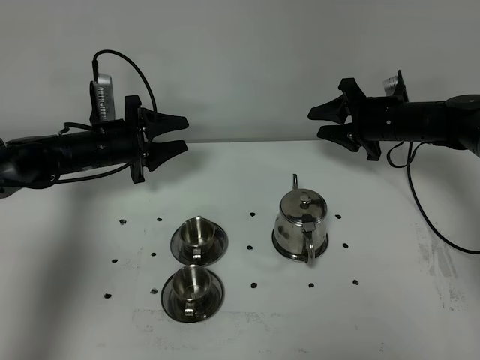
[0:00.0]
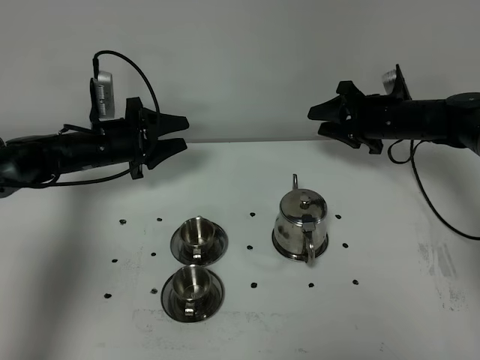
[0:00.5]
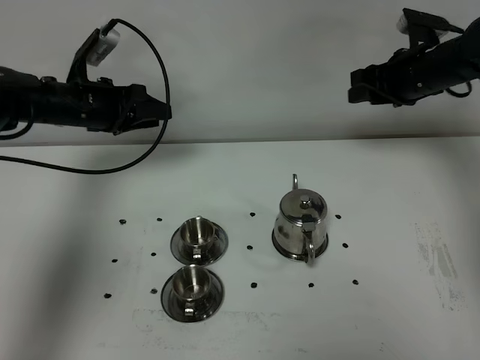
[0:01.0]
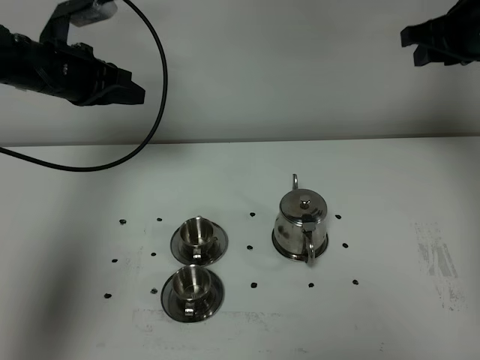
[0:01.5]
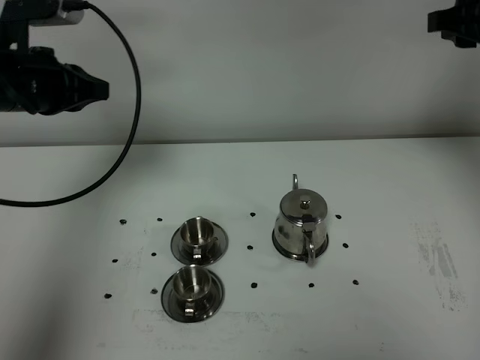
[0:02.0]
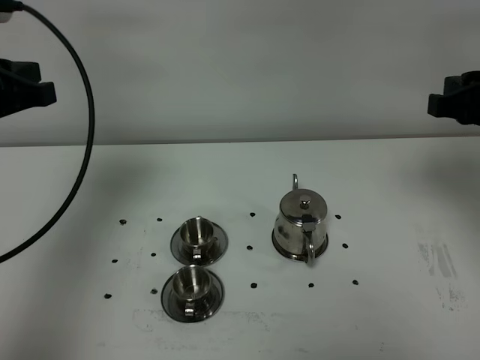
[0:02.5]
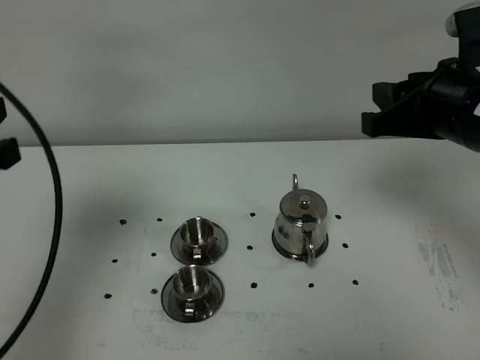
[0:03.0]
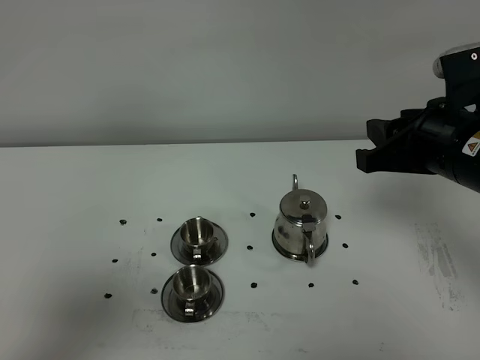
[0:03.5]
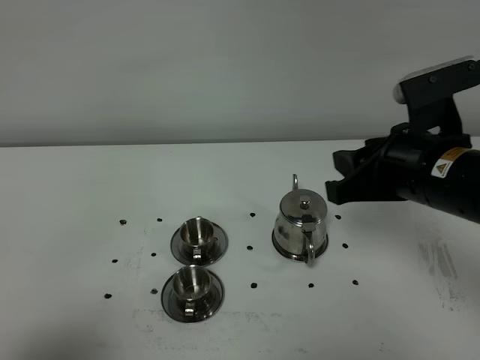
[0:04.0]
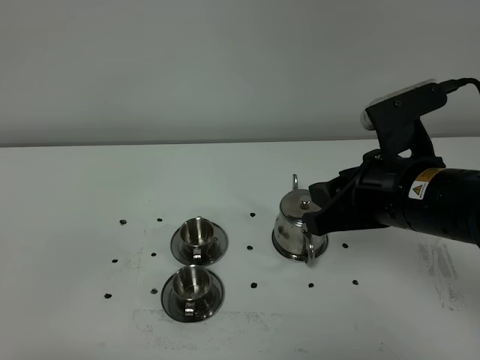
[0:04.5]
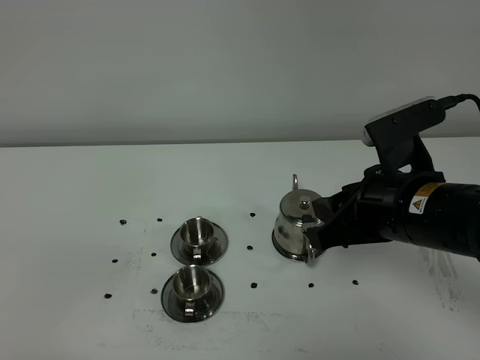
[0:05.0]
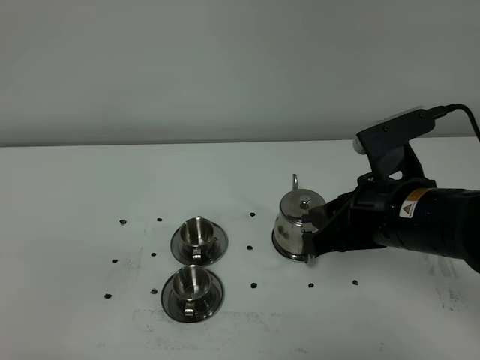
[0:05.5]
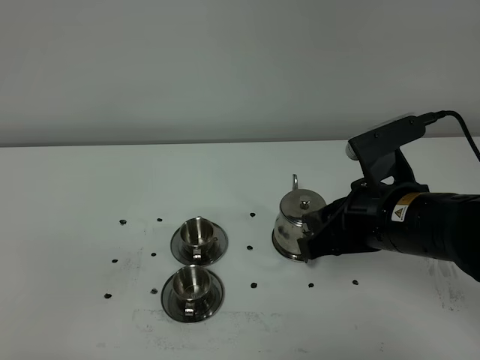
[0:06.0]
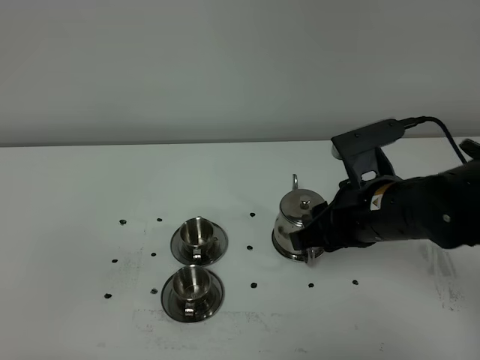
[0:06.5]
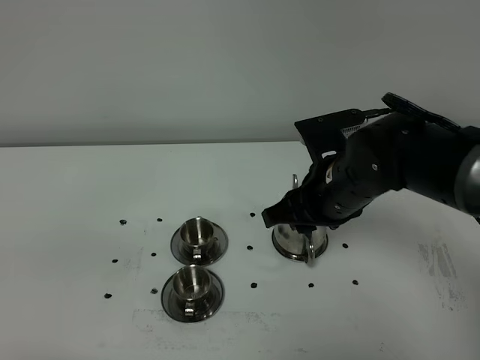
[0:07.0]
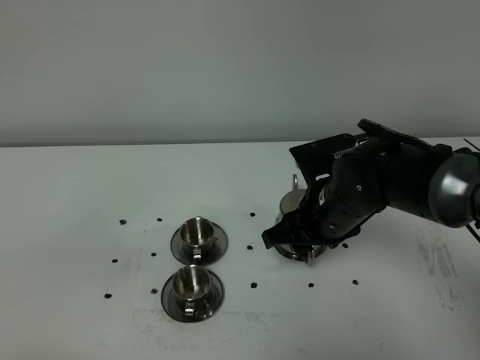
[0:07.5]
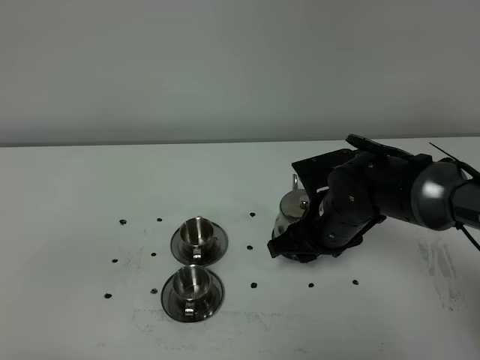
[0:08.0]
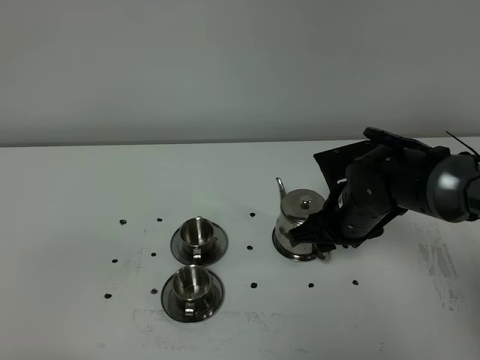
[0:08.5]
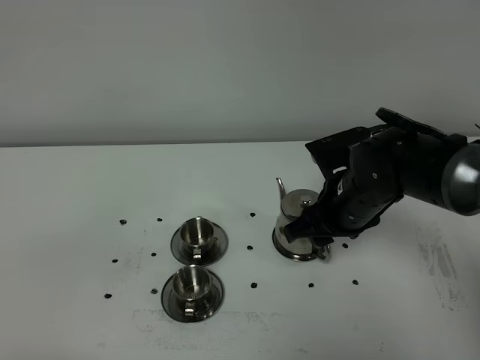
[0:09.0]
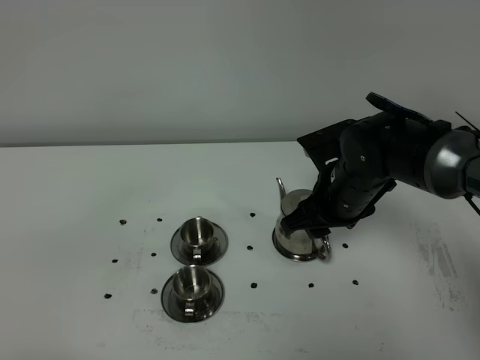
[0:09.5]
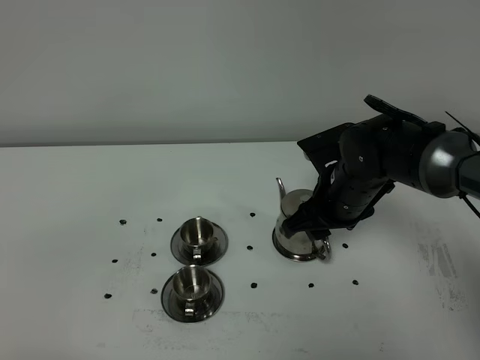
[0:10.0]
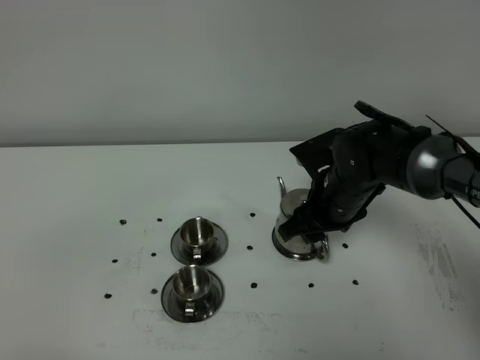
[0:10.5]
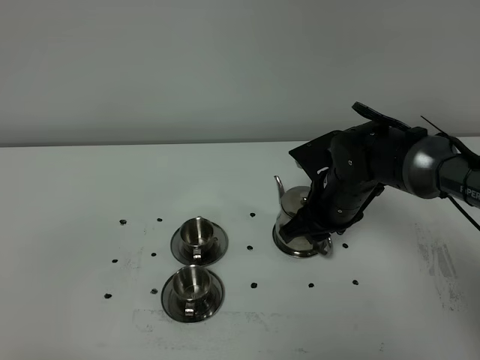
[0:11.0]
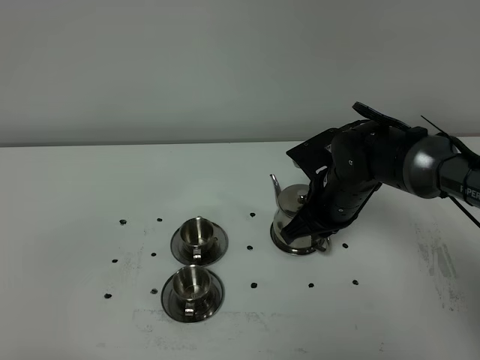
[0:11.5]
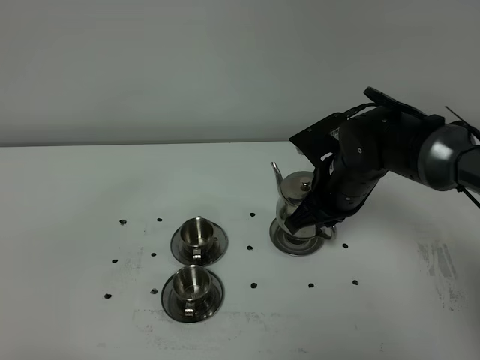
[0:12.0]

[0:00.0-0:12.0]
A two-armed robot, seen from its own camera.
Task of the whole recording: grasp the stainless steel teapot and pour the tea into the two stainless steel teacups one by one, put the stainless steel teapot back in its original place.
Step, 0:00.0 to 0:11.5: Pick up the teapot with the right gripper.
0:00.0 to 0:02.0: The grippers both shift upward and backward by some 25 cm. The left gripper closes up.
0:02.0 to 0:04.0: The right gripper moves backward, to the left and downward, roughly 20 cm. The left gripper moves backward, about 35 cm.
0:04.0 to 0:06.0: The left gripper heads backward, covering about 5 cm.
0:06.0 to 0:08.0: The right gripper shifts about 10 cm forward and downward.
0:08.0 to 0:10.0: The grippers stay close to where they were, moving slightly.
0:10.0 to 0:12.0: The right gripper closes.

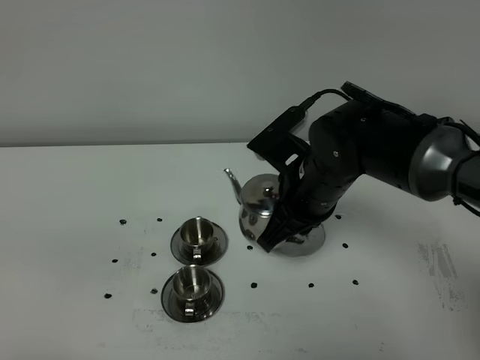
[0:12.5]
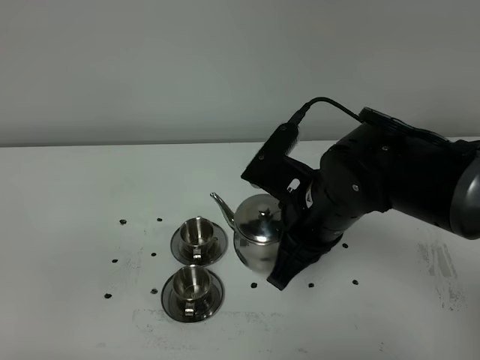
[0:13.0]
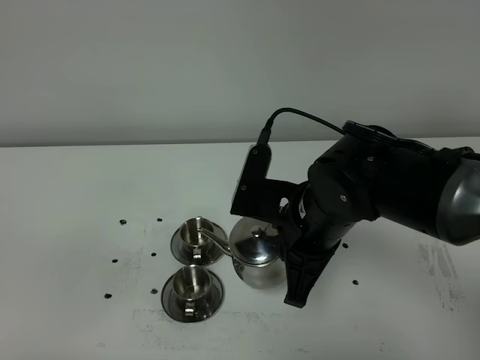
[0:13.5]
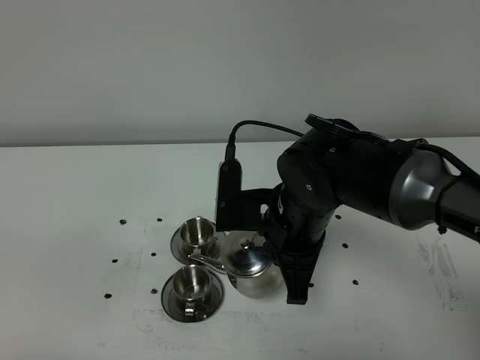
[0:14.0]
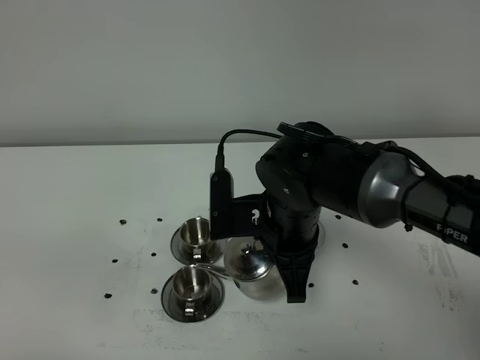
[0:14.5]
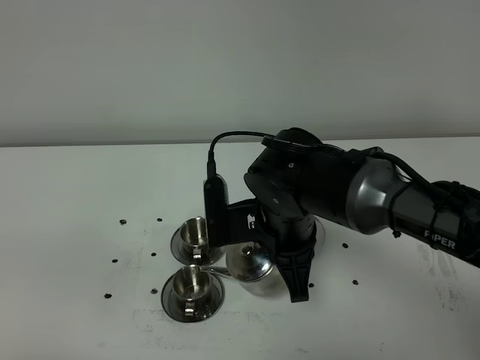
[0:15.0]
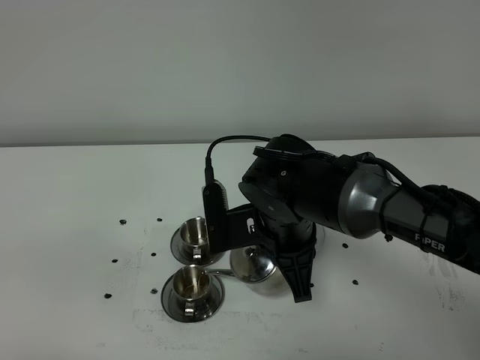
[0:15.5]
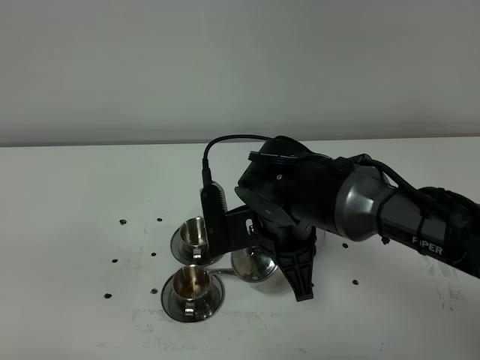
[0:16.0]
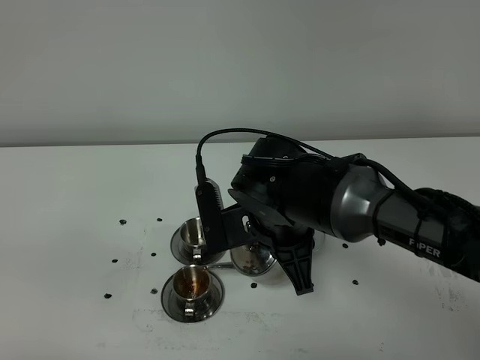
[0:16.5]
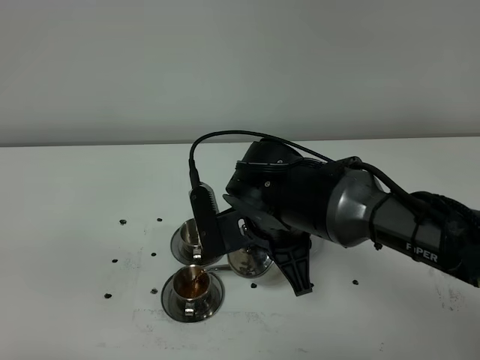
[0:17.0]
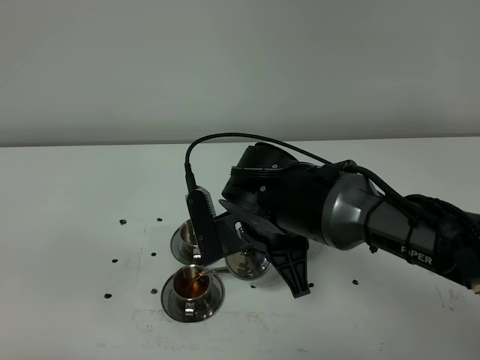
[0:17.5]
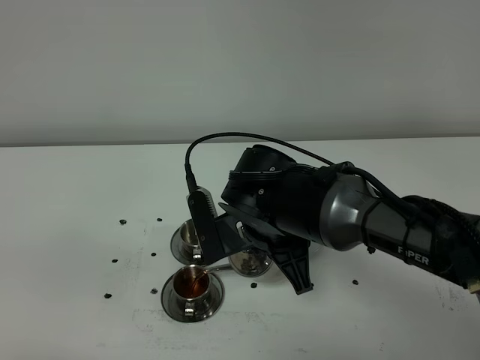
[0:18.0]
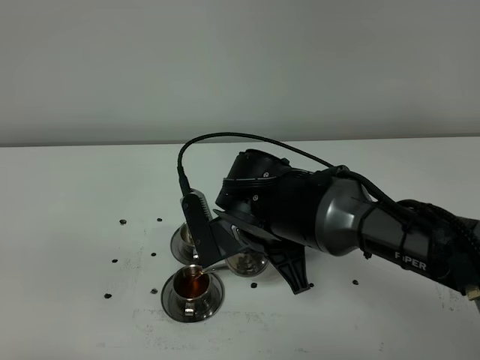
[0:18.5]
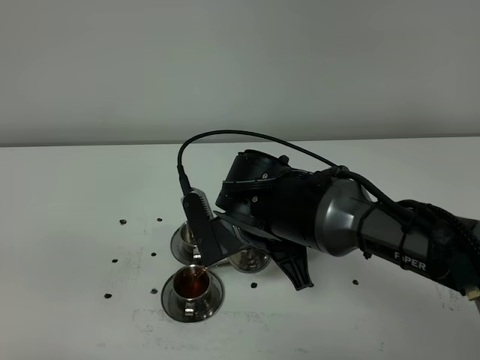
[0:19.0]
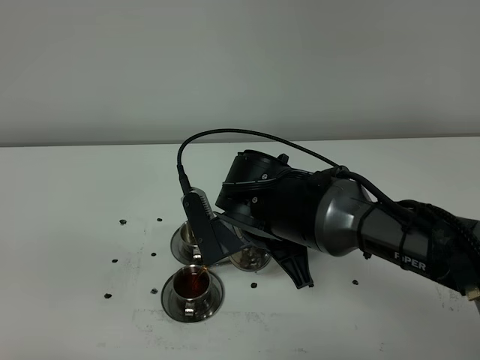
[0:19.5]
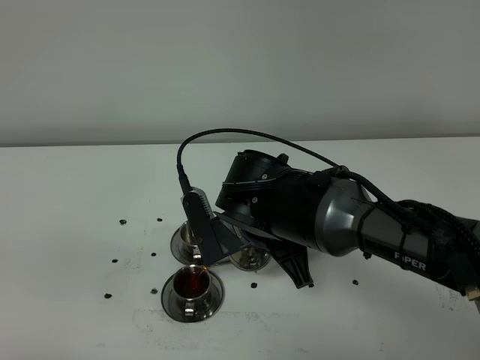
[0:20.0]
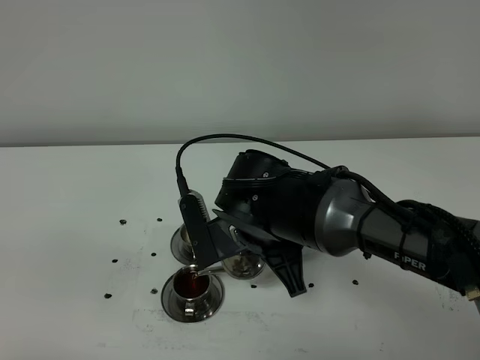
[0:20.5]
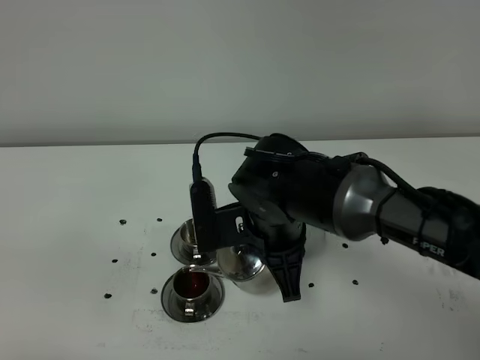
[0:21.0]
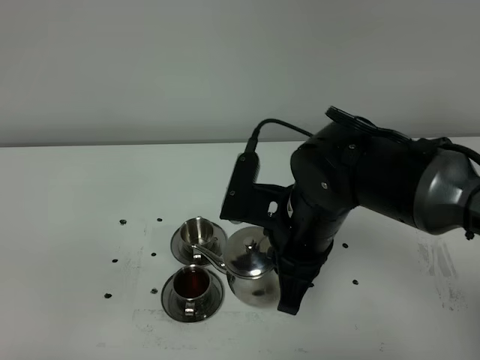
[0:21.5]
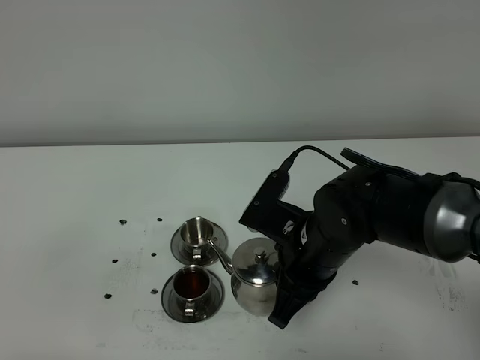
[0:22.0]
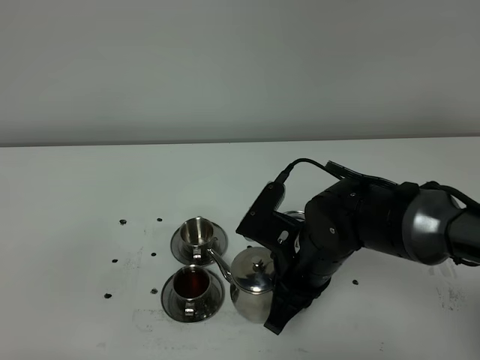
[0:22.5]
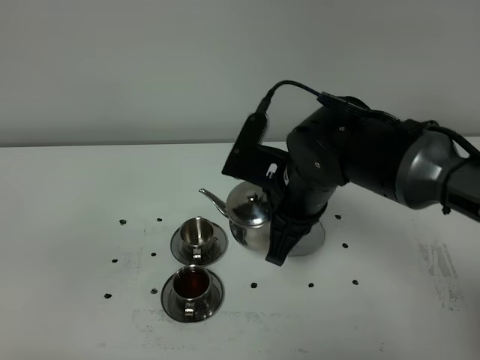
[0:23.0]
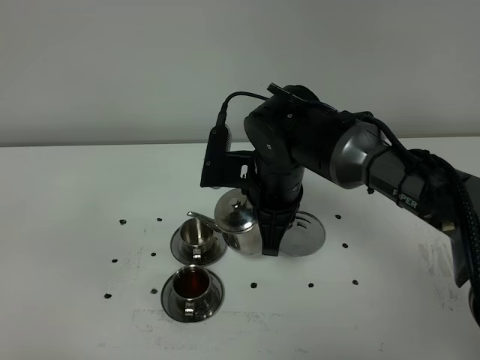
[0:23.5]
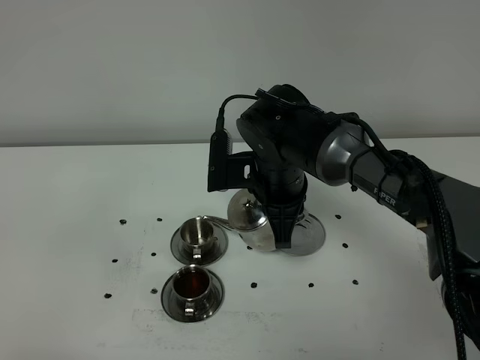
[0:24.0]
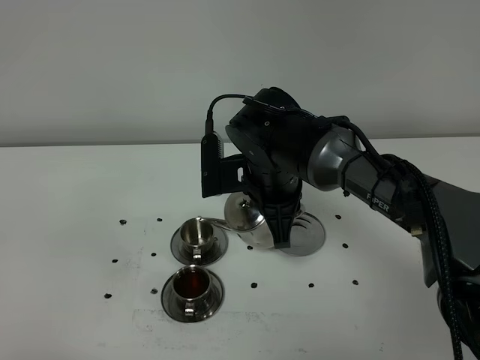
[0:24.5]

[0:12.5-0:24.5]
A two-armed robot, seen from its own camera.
Task of the whole recording: grasp the stainless steel teapot and pour the tea into the two stainless steel teacups one by one, put the stainless steel teapot back in its original place.
0:14.5 to 0:16.5: The grippers move only a little.
0:16.5 to 0:18.5: The grippers stay close to where they were, moving slightly.
0:18.5 to 0:20.5: Both grippers stay put.
0:20.5 to 0:22.5: The right gripper goes about 5 cm to the right.
0:22.5 to 0:24.5: The right gripper heads forward, covering about 10 cm.

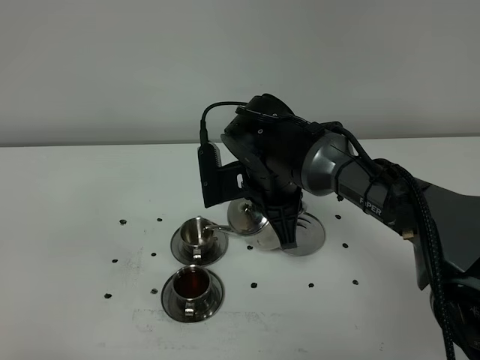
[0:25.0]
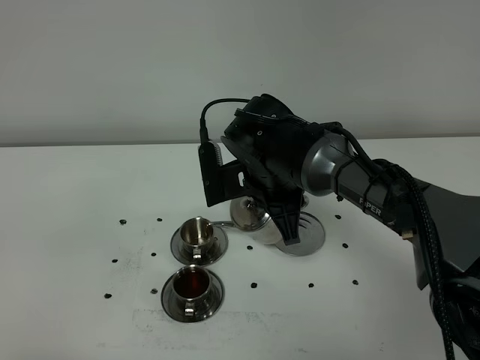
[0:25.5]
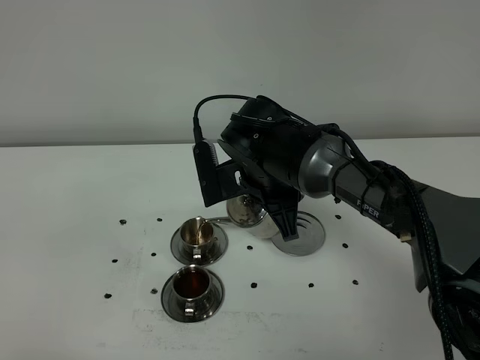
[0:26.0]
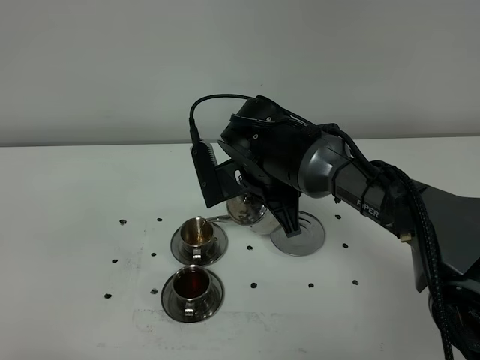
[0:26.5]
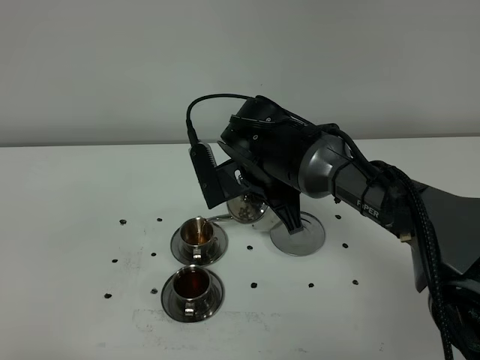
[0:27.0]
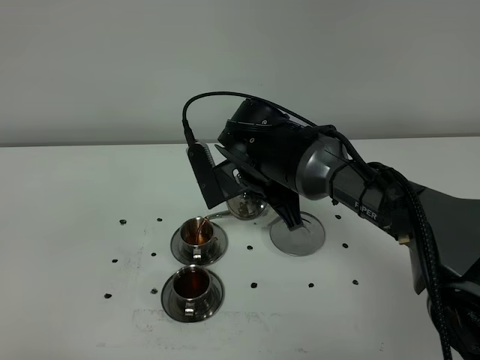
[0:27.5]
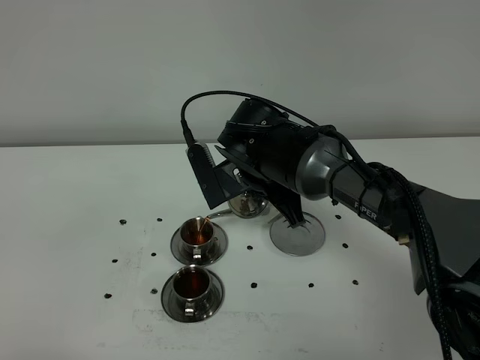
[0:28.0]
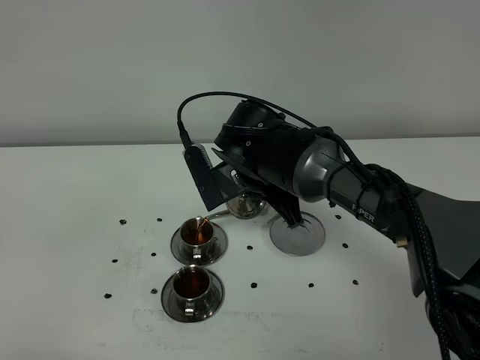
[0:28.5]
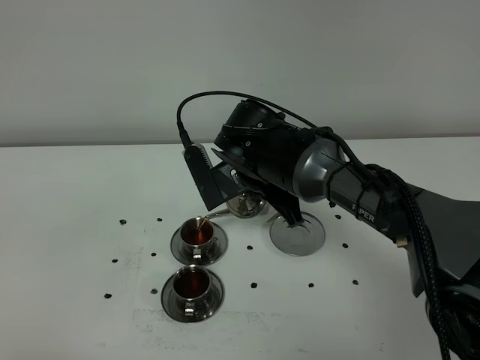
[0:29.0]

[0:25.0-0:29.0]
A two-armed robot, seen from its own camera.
Task of the whole recording: grasp the stainless steel teapot and pour the tea into the two stainless steel teacups one by one, put the stainless steel teapot back in its original place.
0:25.0 to 0:29.0: The grippers stay close to where they were, moving slightly.
